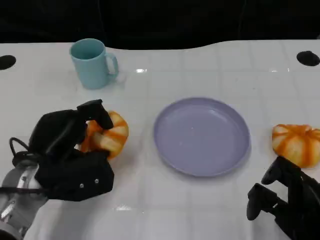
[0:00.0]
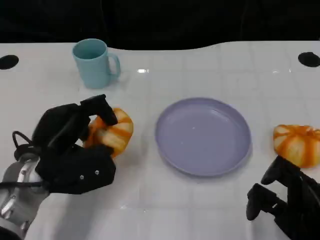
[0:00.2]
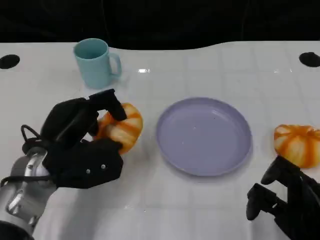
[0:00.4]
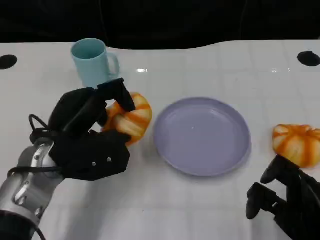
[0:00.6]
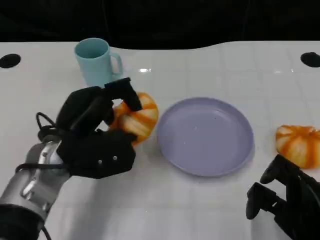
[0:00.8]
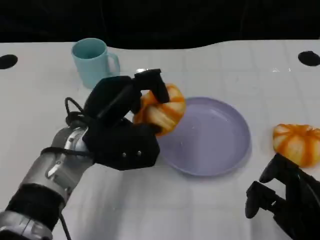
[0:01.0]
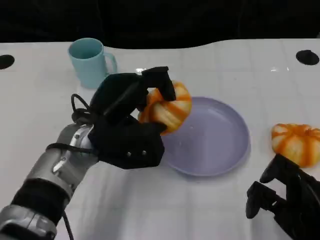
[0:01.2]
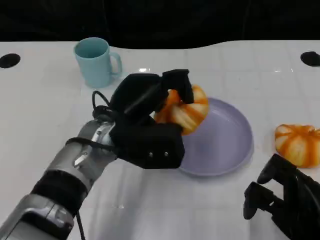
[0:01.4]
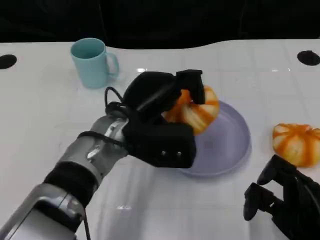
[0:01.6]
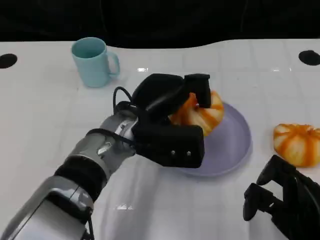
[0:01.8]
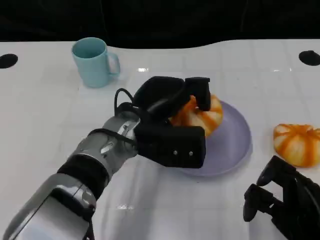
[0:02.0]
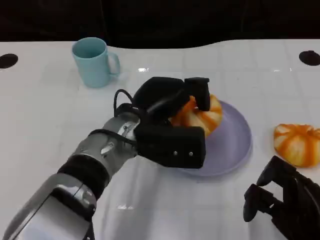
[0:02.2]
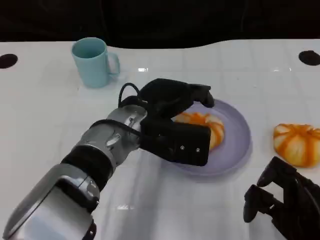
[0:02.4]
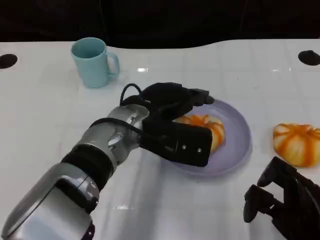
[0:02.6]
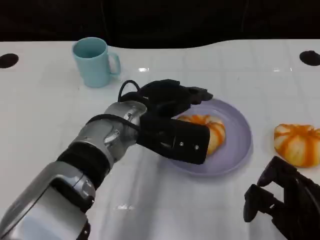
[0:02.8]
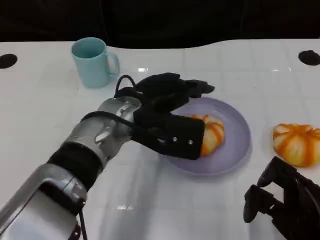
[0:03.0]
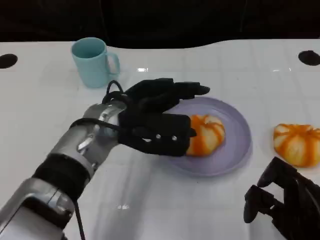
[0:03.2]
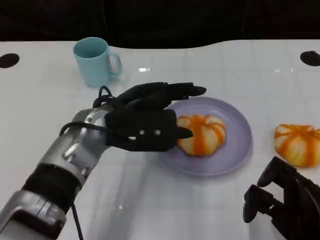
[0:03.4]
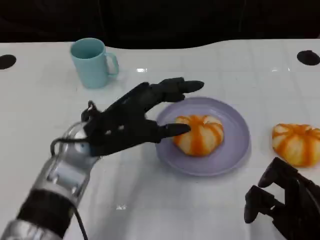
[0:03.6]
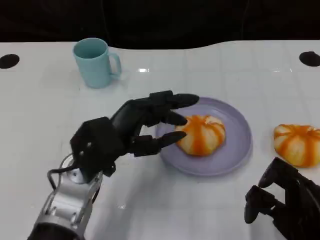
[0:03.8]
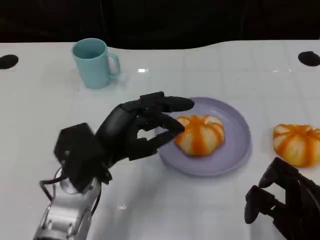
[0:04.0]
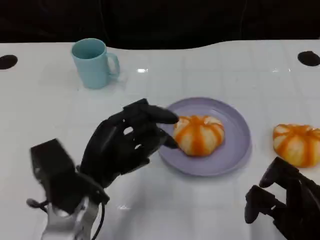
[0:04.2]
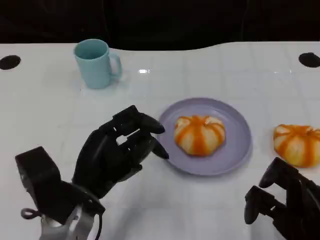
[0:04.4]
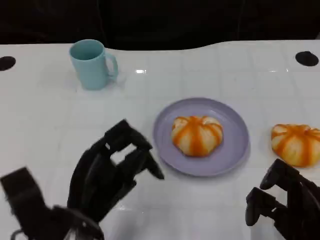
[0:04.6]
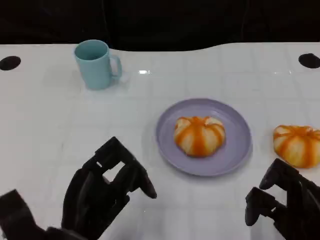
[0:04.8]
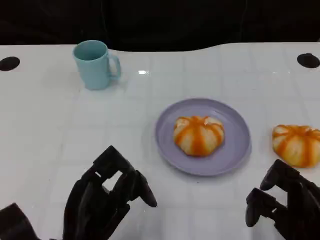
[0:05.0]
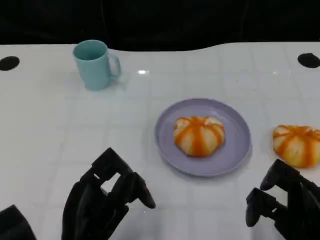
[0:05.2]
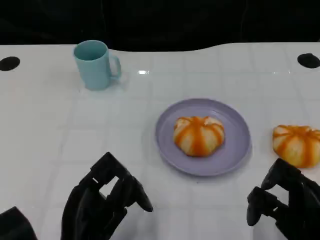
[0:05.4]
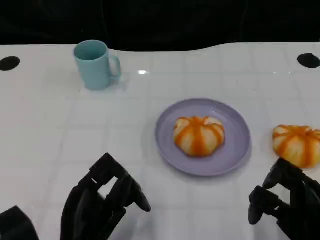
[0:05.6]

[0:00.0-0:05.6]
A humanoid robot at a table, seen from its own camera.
Task of the whole recording: Grasp the bread from the table and place it into the plate.
0:00.0 to 0:01.4: The left hand travels to the right by roughly 10 cm.
0:02.8 to 0:04.2: The left hand is displaced backward, to the left and downward by approximately 15 cm.
0:04.2 to 0:05.6: The left hand is displaced backward by roughly 5 cm.

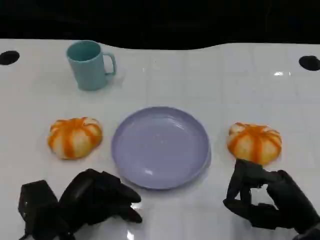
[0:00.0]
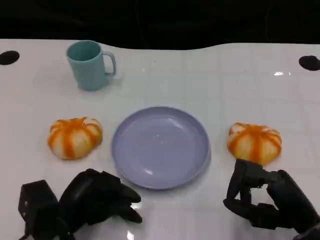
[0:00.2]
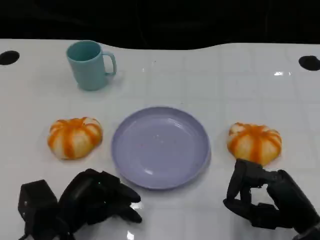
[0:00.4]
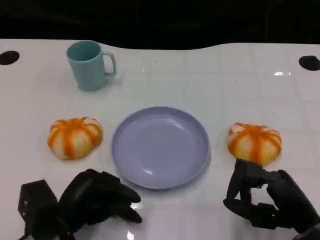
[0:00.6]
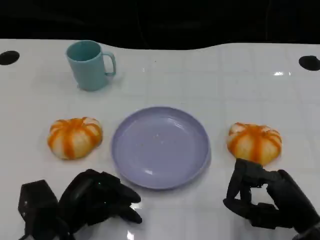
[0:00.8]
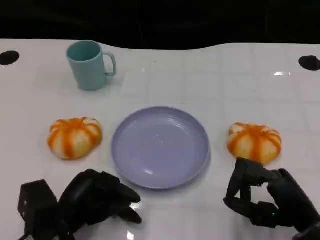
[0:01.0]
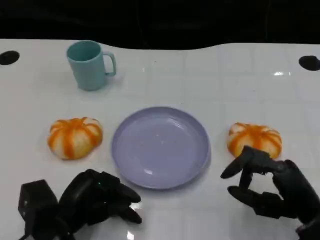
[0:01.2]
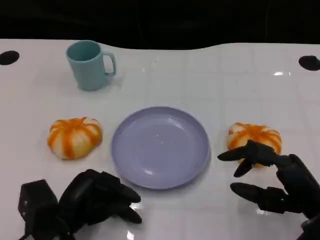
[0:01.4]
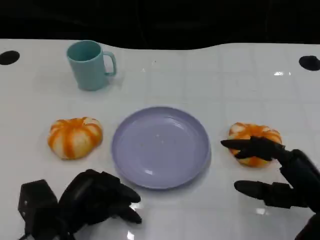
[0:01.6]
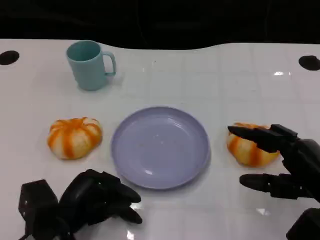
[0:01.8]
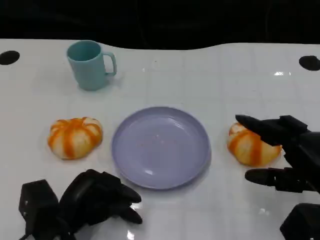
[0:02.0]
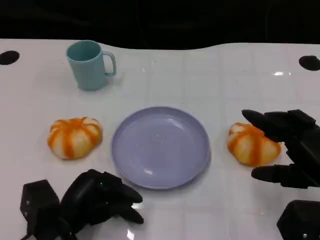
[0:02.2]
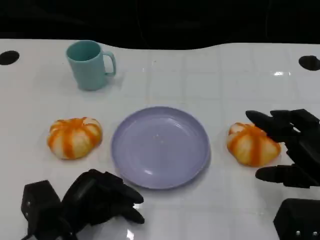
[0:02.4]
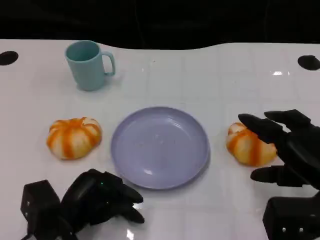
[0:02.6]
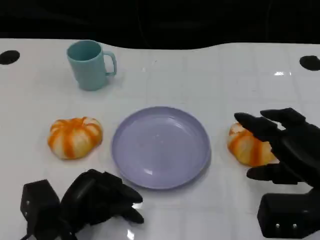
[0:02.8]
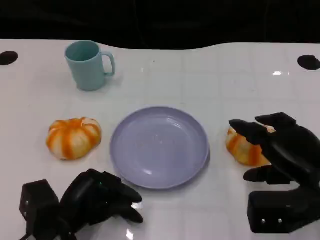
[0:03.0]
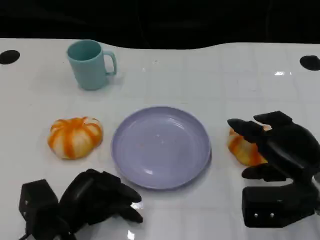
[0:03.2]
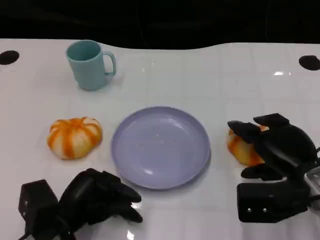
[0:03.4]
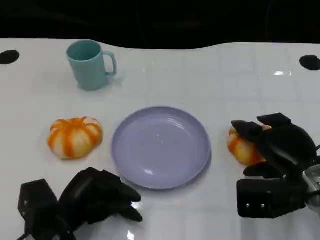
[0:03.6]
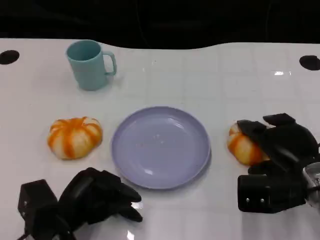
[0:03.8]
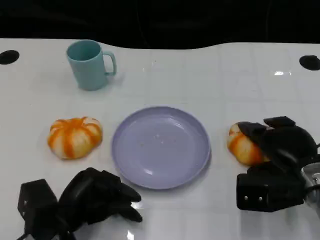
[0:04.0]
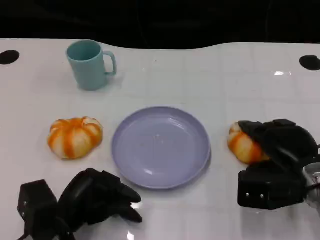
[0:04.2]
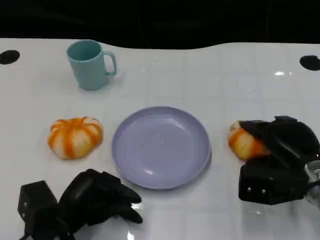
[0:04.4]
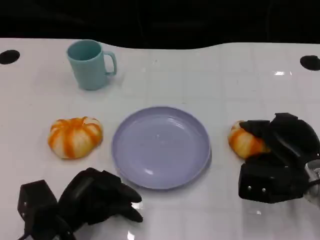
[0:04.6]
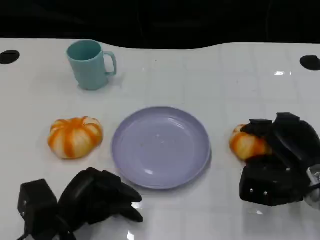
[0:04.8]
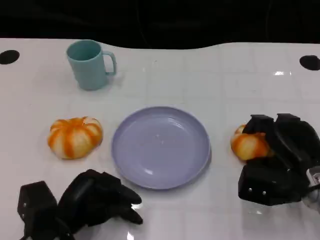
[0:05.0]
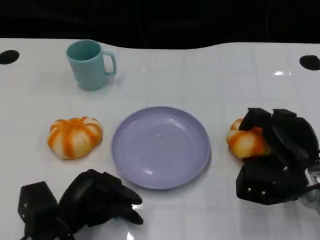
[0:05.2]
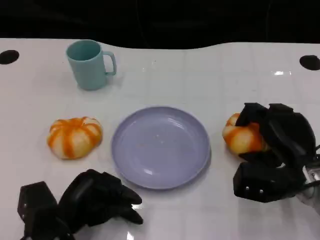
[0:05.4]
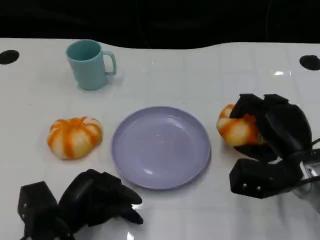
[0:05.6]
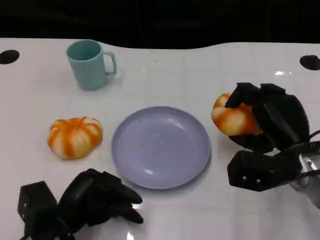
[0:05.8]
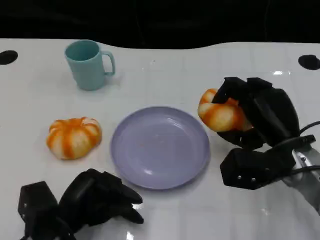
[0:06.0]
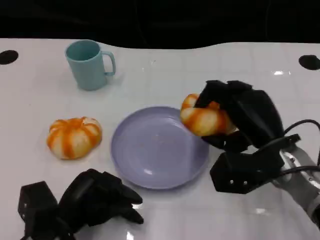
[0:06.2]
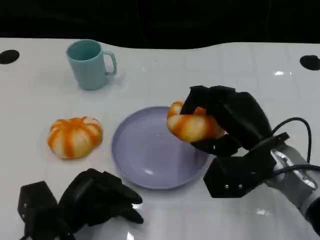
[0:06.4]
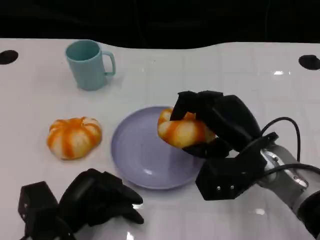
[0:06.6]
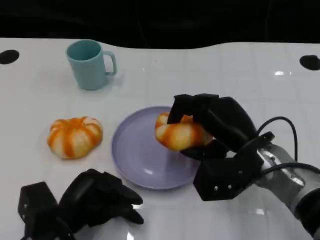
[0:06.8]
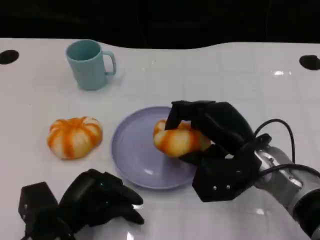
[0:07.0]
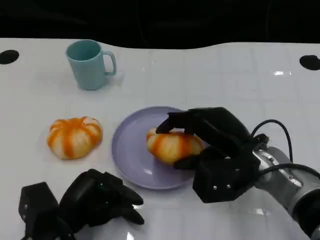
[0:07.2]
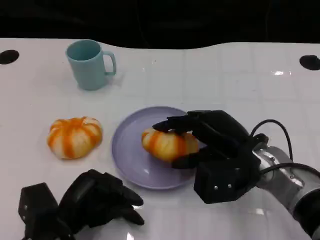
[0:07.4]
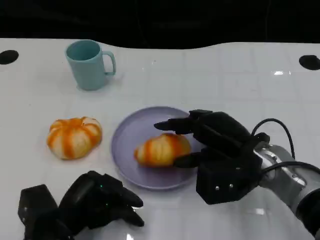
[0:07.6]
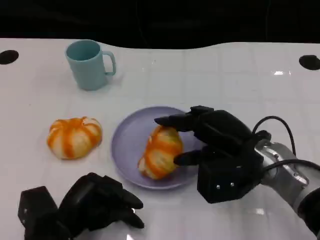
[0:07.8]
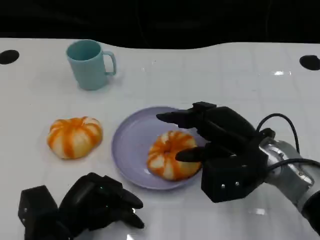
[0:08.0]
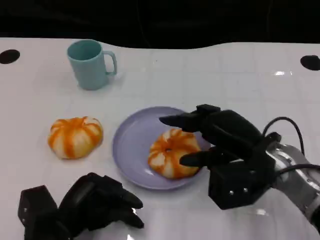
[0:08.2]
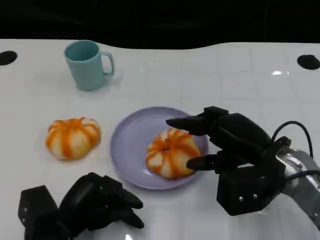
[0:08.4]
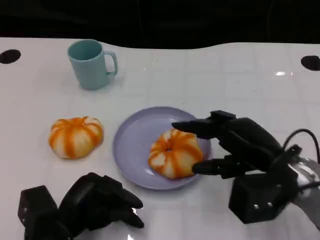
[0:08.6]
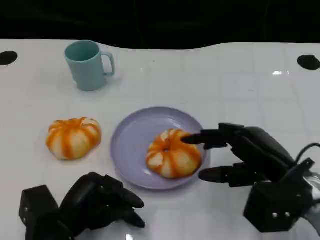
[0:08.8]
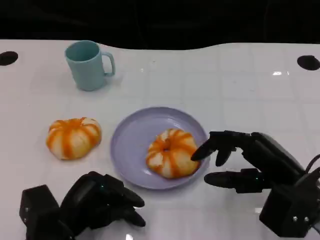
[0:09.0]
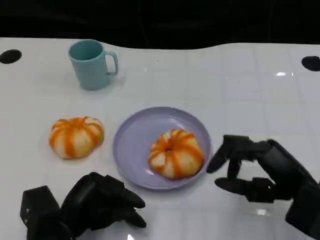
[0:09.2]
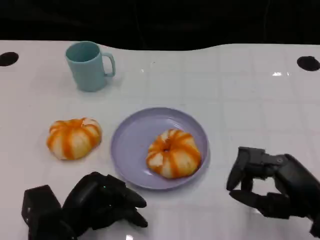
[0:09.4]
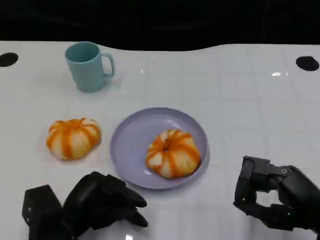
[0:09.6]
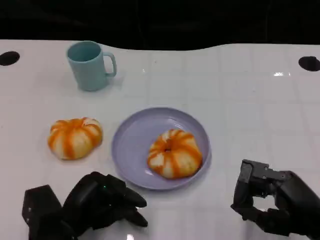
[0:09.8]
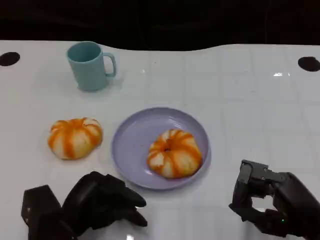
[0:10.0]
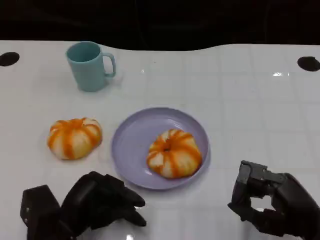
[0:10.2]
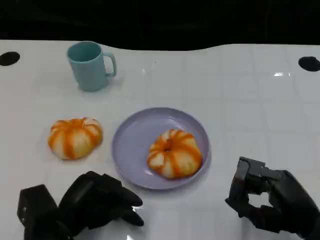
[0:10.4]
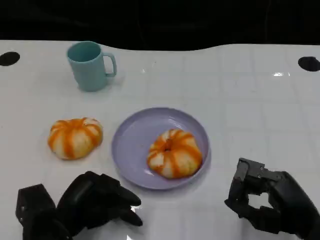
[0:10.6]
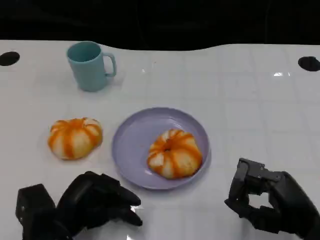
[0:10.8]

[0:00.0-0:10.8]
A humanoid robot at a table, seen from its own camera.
Task of the whole recording: Grasp the bread from the table and place it into the plate.
0:00.0 to 0:01.6: The hands move only a little.
0:03.0 to 0:04.6: The right hand shifts by some 5 cm.
0:04.6 to 0:06.2: The right hand heads to the left, covering some 5 cm.
0:07.8 to 0:09.2: The right hand heads backward and to the right, covering roughly 10 cm.
0:09.2 to 0:10.8: The hands make only small movements.

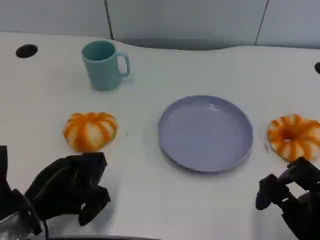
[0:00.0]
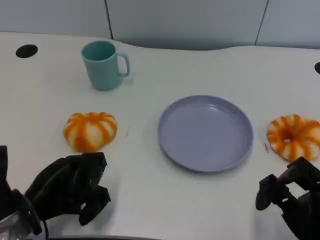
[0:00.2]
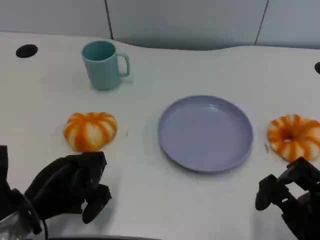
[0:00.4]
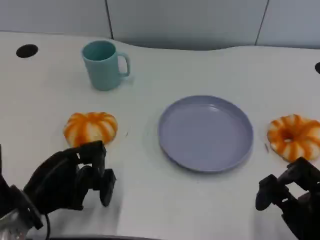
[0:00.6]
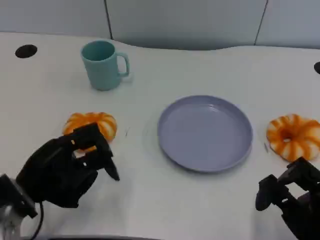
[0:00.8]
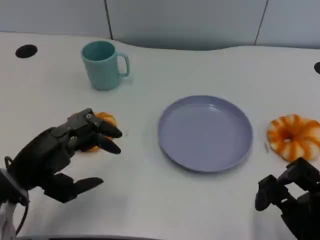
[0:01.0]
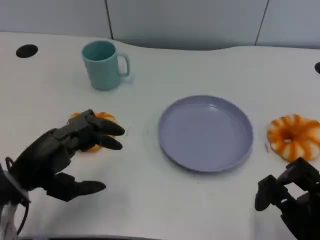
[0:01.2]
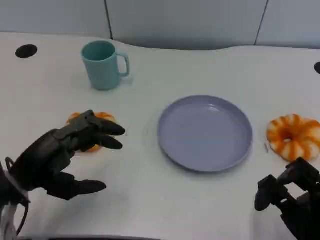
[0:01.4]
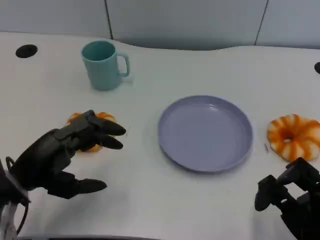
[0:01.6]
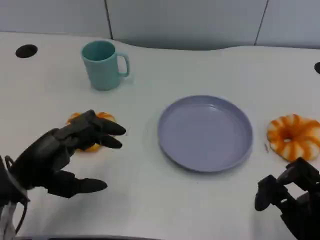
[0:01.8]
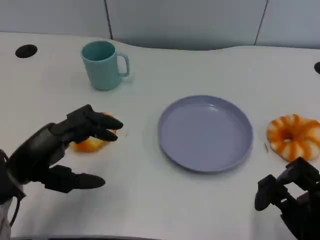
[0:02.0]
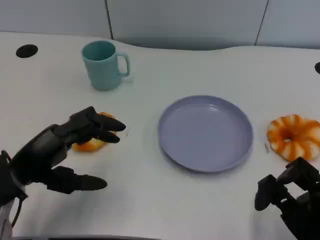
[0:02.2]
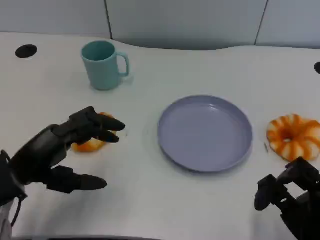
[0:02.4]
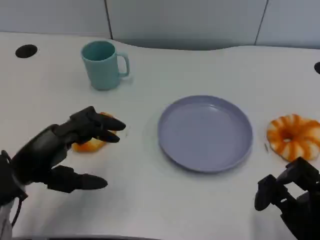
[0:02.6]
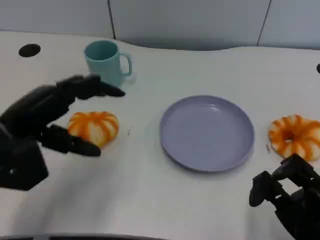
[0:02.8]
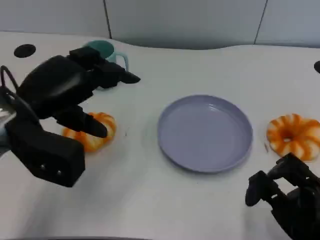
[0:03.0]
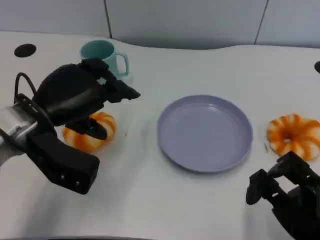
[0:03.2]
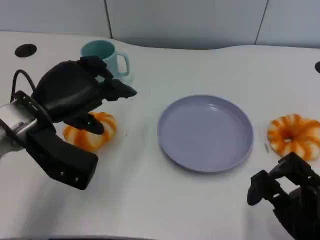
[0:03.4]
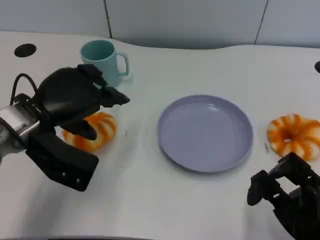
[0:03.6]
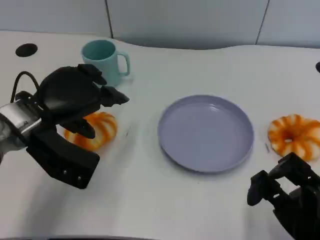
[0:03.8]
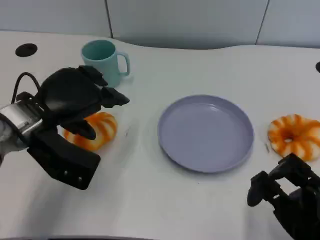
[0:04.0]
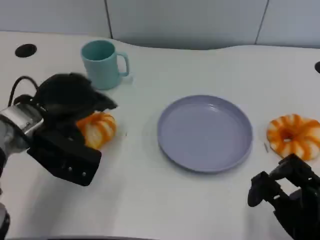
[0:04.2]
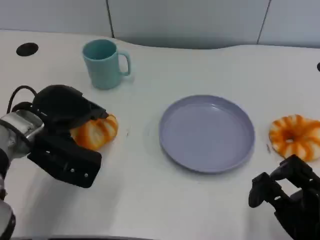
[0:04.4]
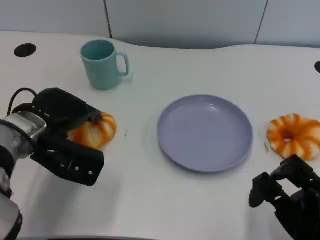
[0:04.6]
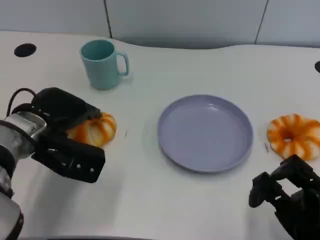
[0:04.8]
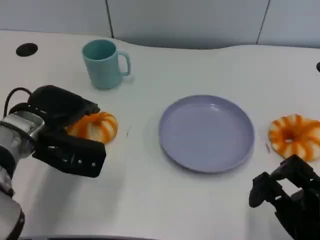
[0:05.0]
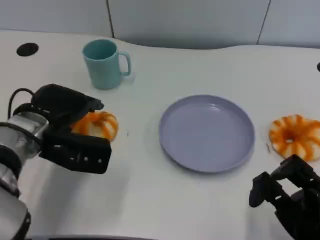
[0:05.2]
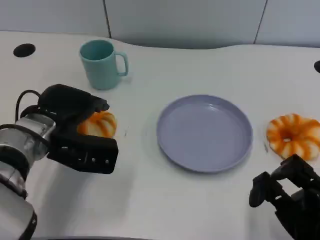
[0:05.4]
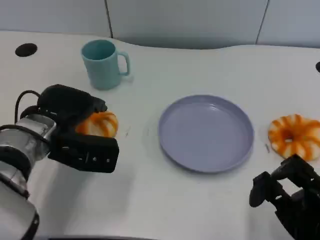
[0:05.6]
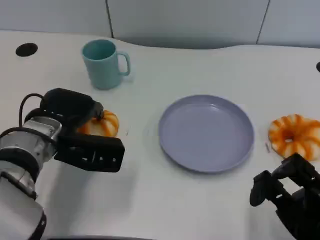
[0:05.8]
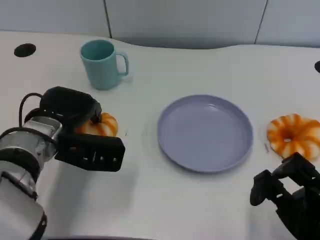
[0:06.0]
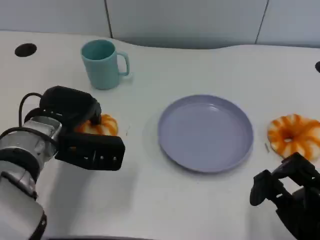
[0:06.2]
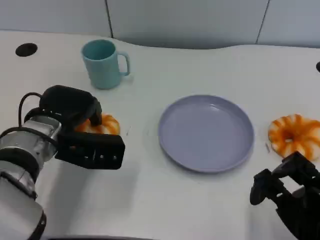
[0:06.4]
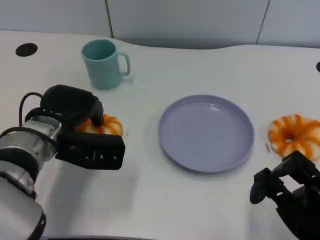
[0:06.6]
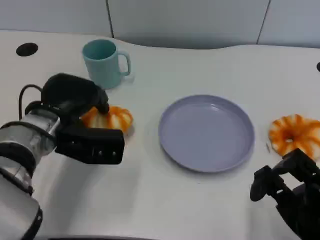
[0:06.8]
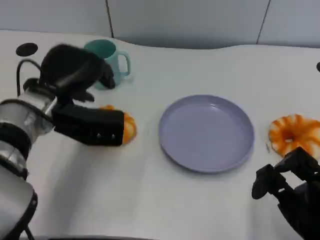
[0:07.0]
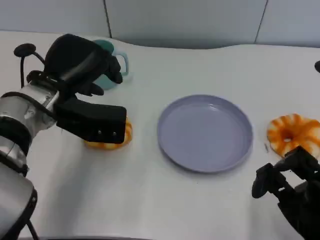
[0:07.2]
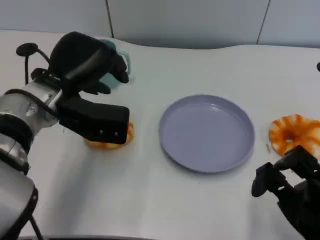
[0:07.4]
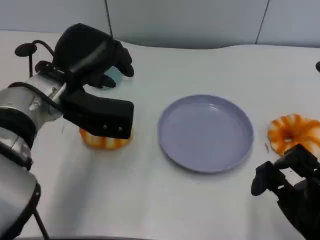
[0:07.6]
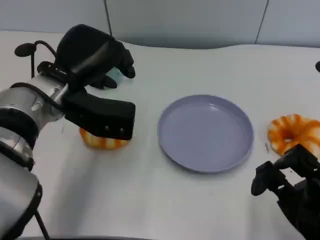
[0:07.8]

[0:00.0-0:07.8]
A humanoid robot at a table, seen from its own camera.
Task of the whole recording: Grasp the bread from the table and place it into the plate.
0:00.0 to 0:01.6: The left hand moves roughly 5 cm.
0:01.6 to 0:03.2: The left hand travels forward and upward by some 10 cm.
0:04.6 to 0:06.2: There are only small adjustments of the hands.
0:06.2 to 0:07.8: The left hand shifts roughly 5 cm upward.
